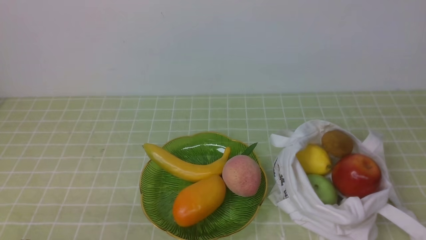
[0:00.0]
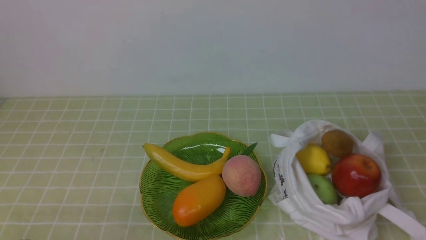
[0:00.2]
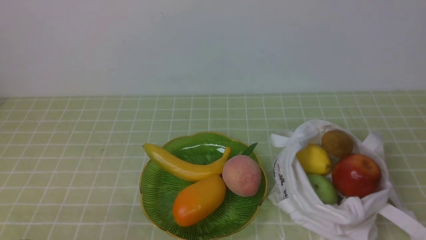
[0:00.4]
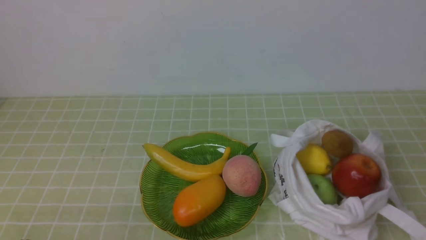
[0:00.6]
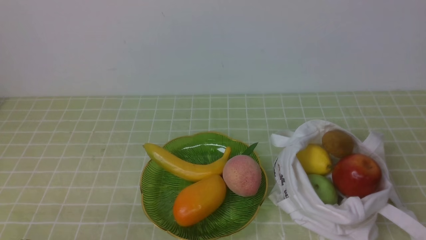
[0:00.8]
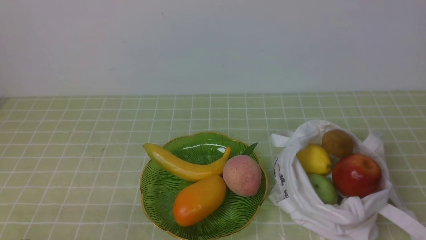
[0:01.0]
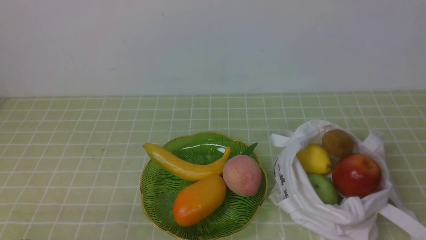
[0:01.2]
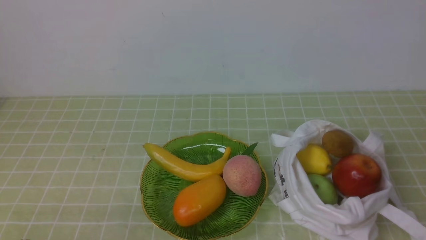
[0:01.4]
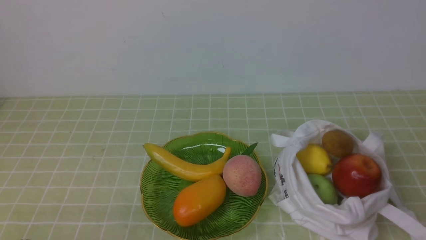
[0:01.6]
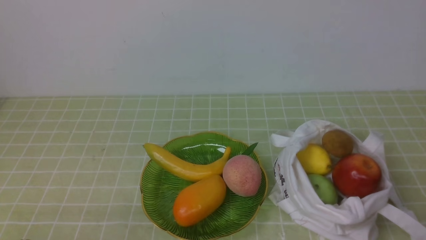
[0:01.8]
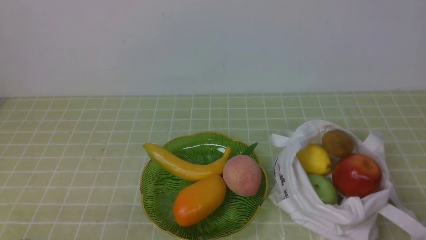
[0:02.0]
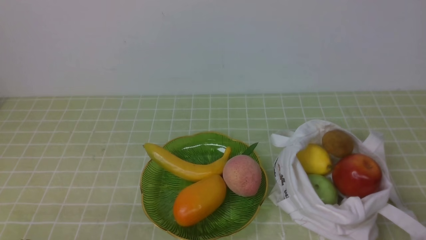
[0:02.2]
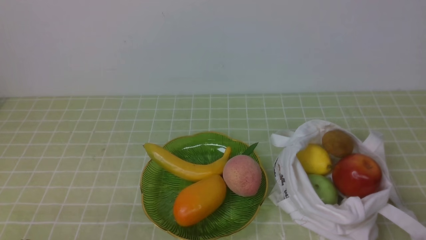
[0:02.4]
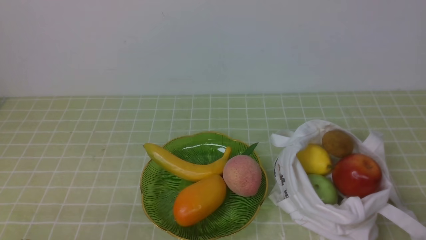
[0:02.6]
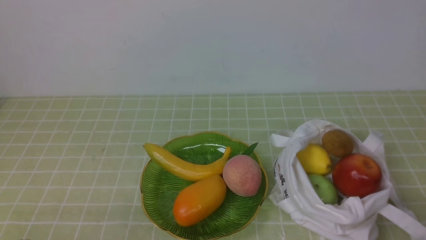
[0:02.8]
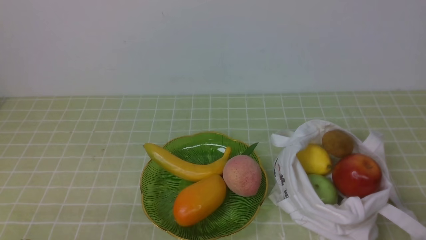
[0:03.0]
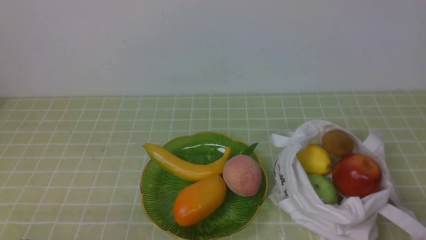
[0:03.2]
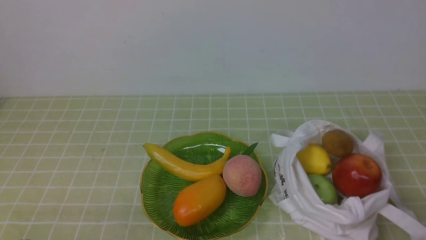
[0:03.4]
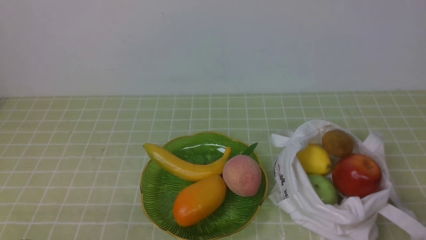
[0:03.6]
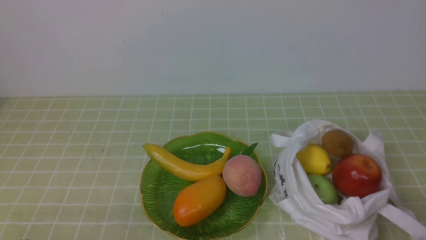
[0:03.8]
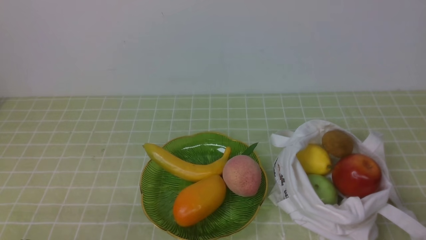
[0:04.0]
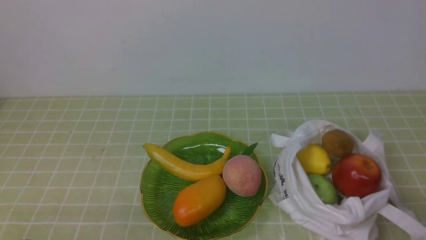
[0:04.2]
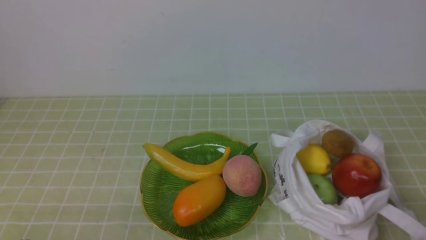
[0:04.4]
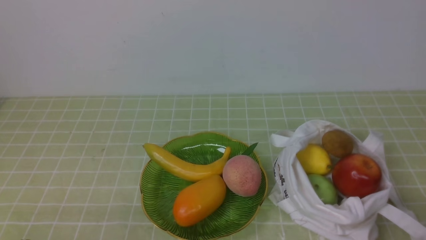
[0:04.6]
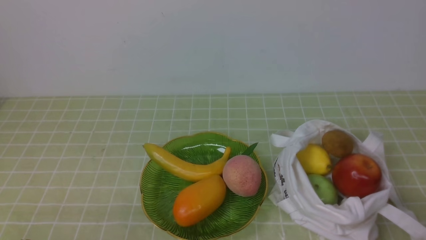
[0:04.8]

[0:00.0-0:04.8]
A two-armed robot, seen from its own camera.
0:00.0 to 0:01.6: The right gripper travels downward and backward by some 15 cm.
0:03.2 to 0:04.8: Neither gripper changes place.
